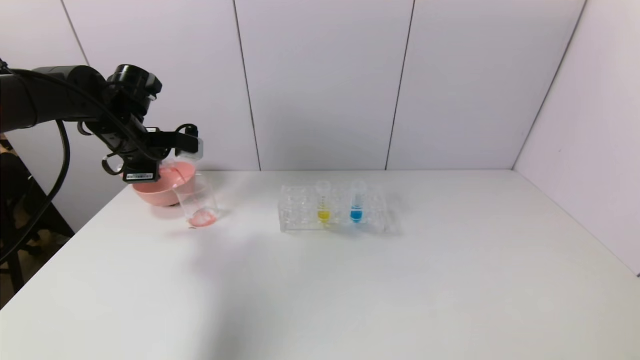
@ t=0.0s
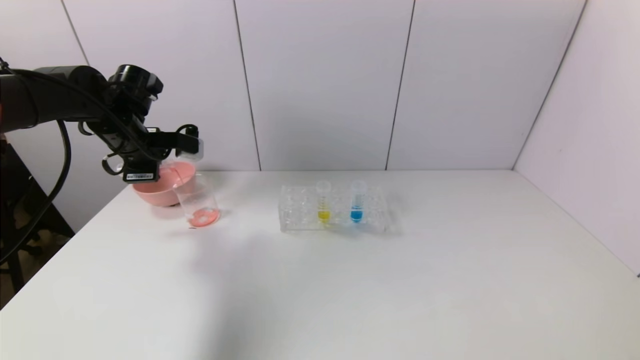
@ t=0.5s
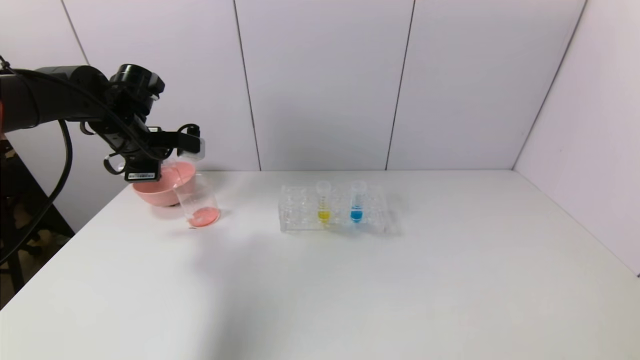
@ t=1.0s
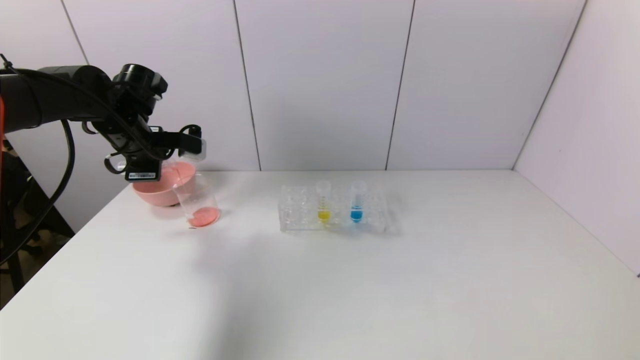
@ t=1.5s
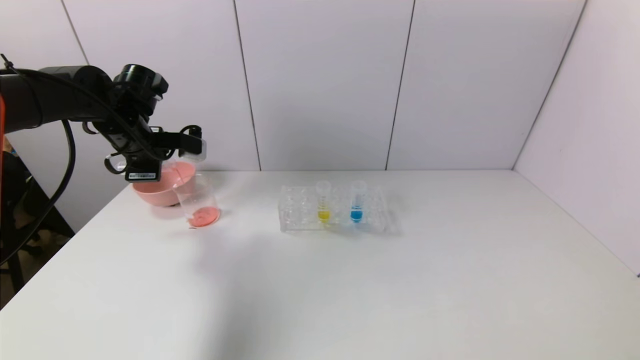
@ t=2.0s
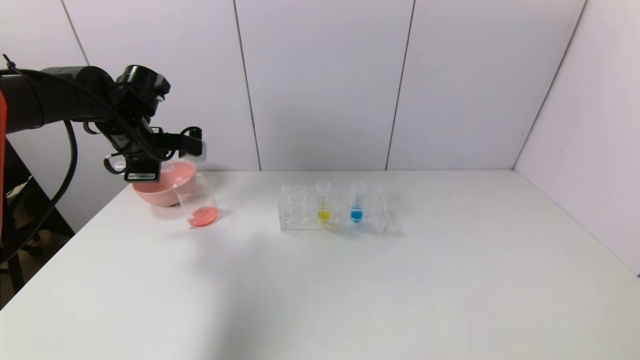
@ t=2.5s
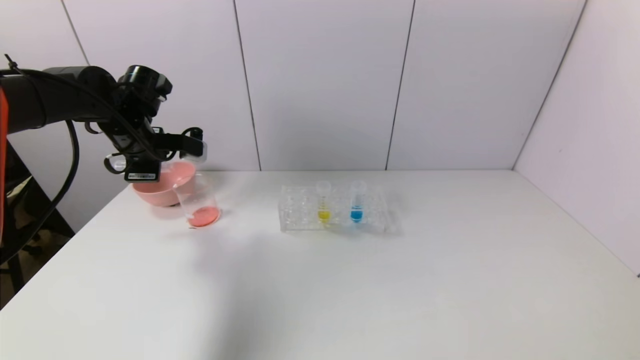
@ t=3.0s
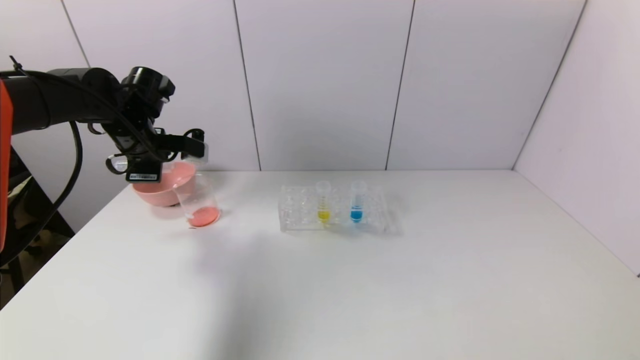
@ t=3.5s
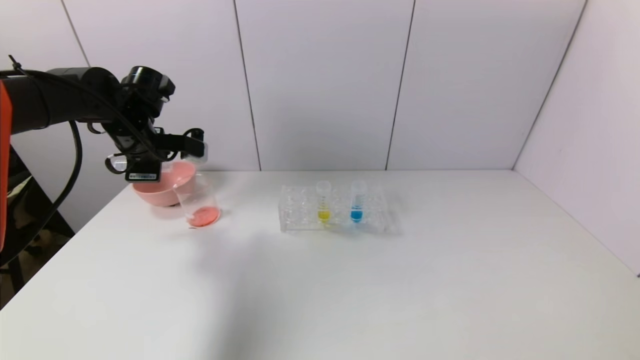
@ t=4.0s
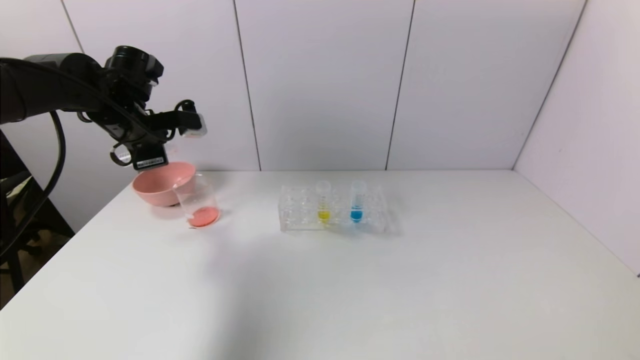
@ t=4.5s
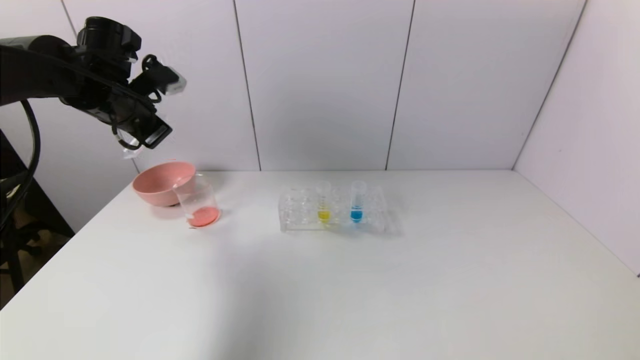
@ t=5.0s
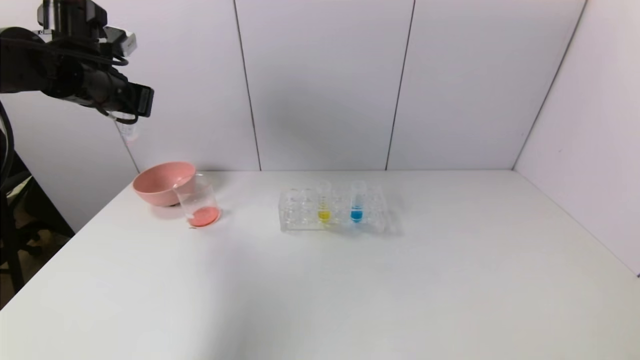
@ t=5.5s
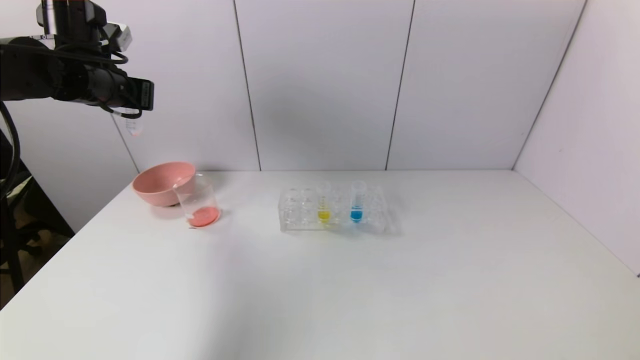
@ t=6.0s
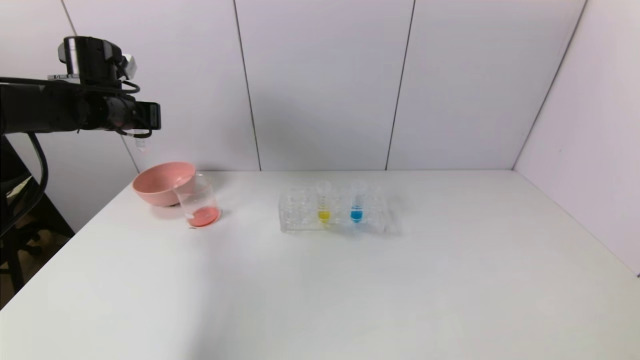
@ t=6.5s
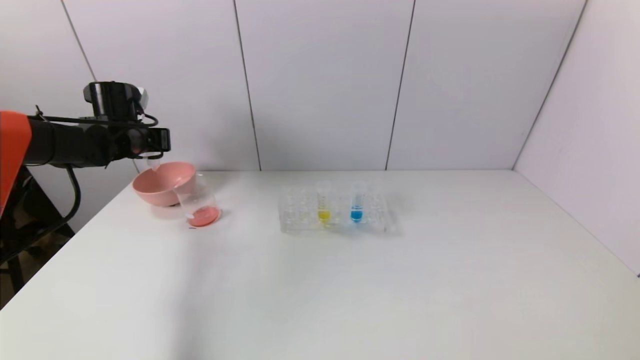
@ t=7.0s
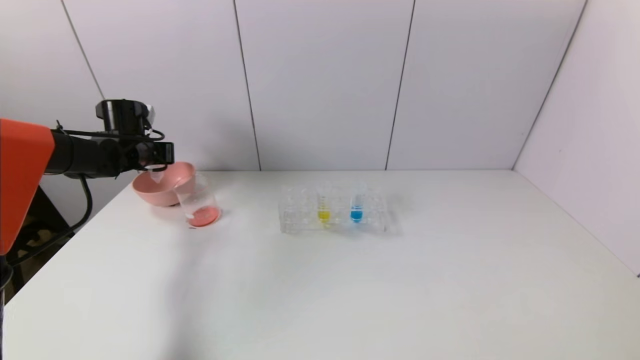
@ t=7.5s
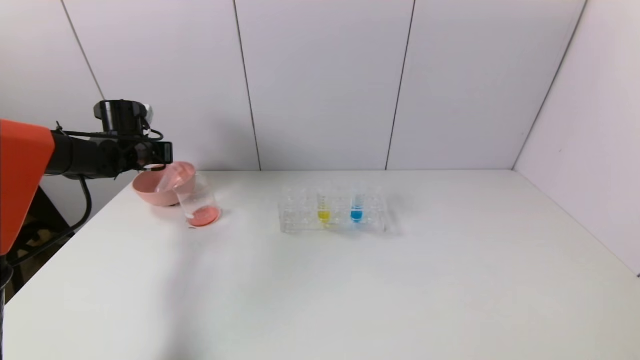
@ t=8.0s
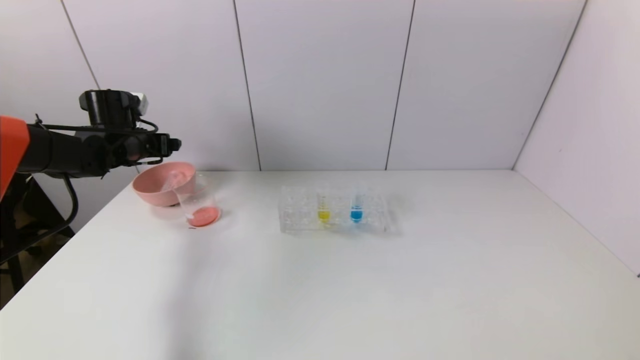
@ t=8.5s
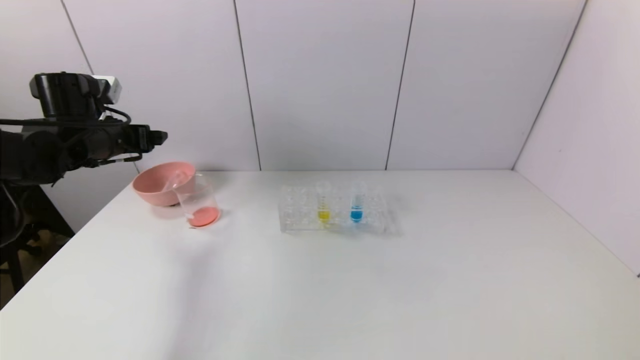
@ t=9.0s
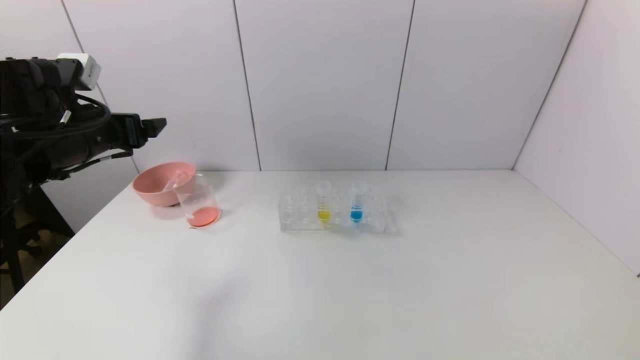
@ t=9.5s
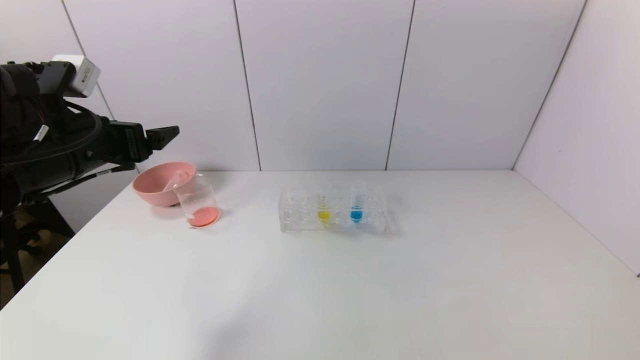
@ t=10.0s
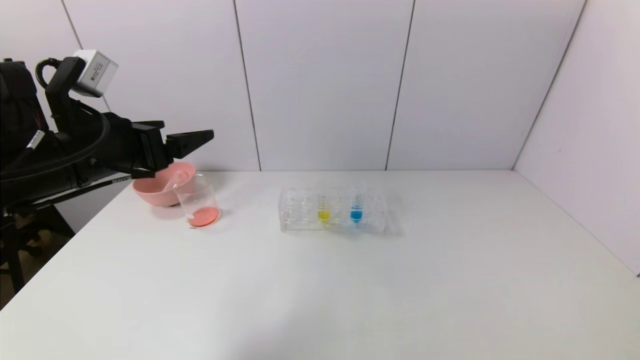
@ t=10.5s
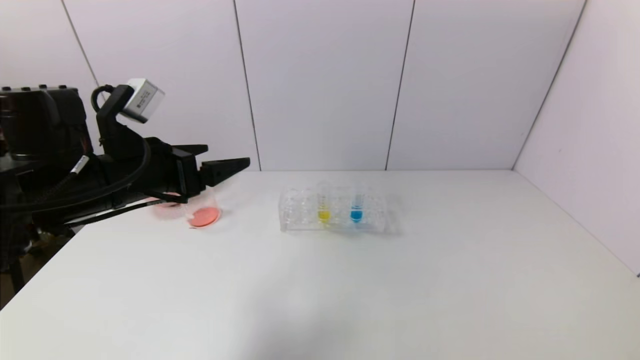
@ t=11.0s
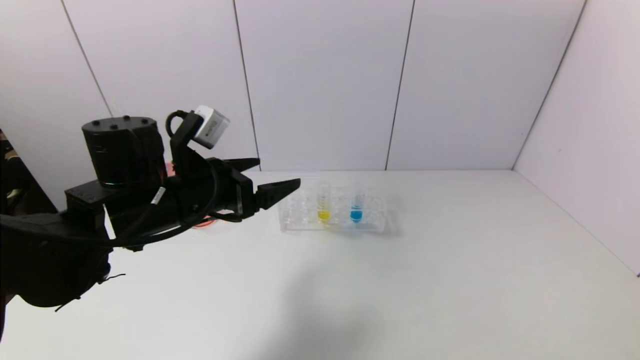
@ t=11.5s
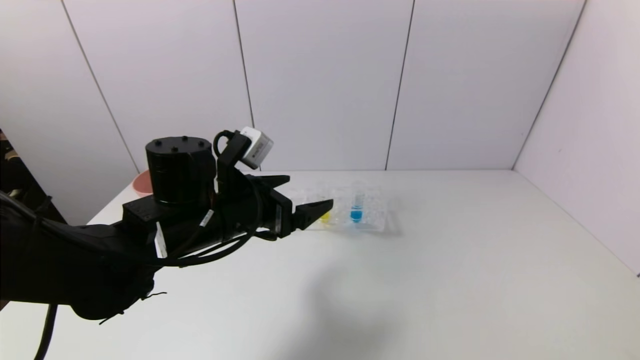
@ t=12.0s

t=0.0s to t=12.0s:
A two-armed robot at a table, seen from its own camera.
Task of the whole recording: pick up the test tube with red pigment and the test tube with blue pigment by grippers and pour them into the container.
Step, t=0.0s to t=5.0s: Pour the red reagent into the graduated cylinder with the left gripper.
Step, t=5.5s to t=9.0s: Place the test tube into the bowl with the left gripper.
t=0.0s to t=2.0s: Both grippers stay about where they are.
t=2.0s to t=4.0s: The grippers make only small movements.
t=4.0s to t=6.0s: The left gripper shifts some 10 cm upward.
t=6.0s to t=8.0s: The left gripper shifts roughly 15 cm downward and forward, and opens its fingers.
t=8.0s to t=10.0s: The left gripper is displaced backward and upward by some 20 cm, and opens its fingers.
t=10.0s to t=12.0s: The left gripper is displaced to the right and downward by roughly 20 cm.

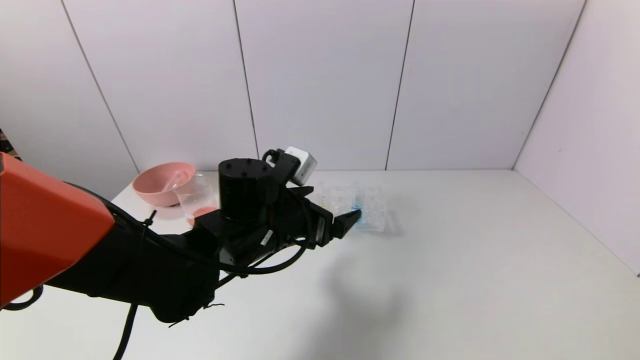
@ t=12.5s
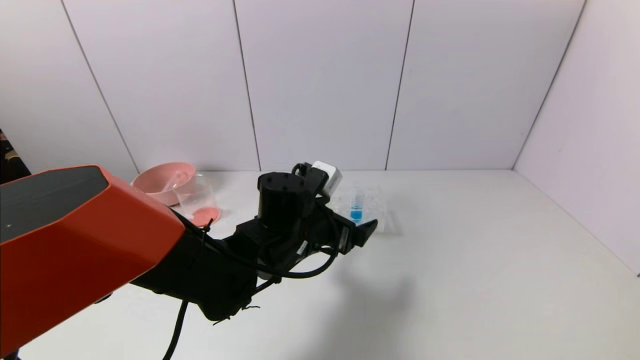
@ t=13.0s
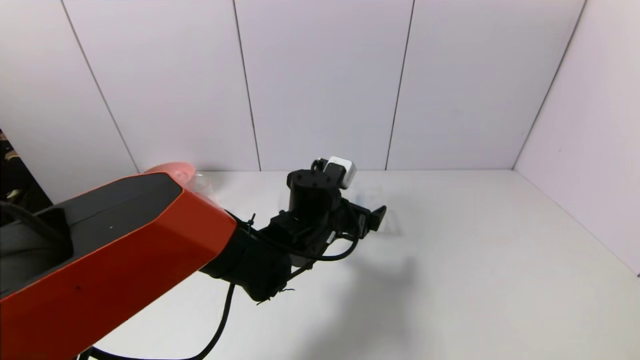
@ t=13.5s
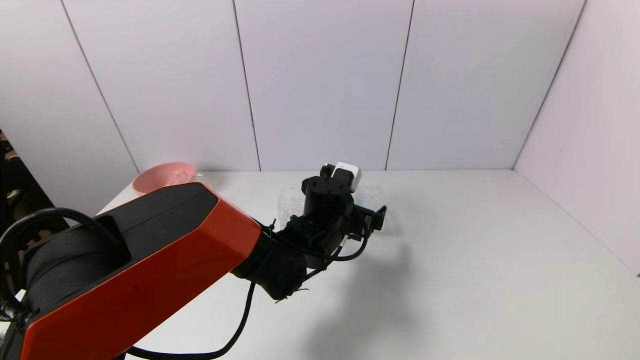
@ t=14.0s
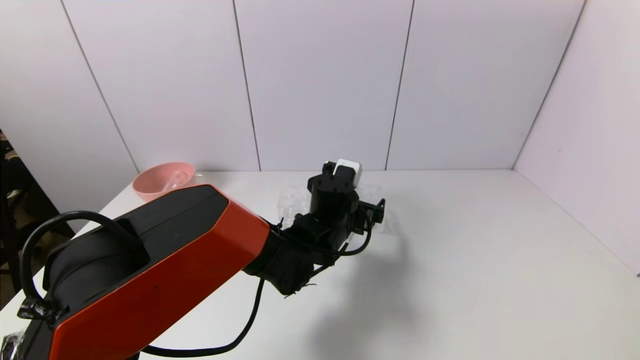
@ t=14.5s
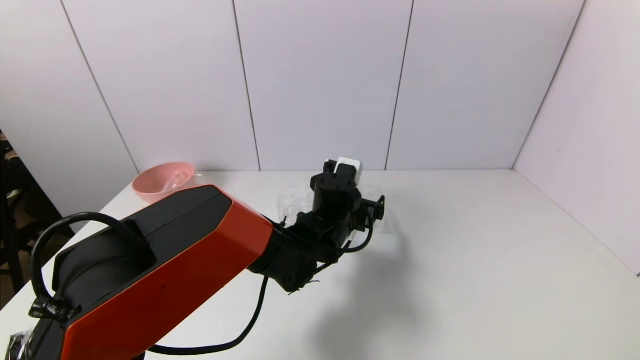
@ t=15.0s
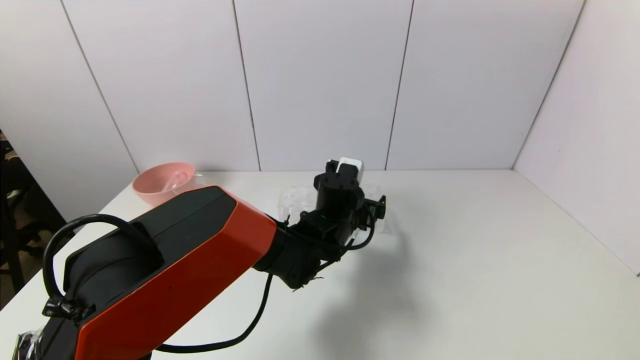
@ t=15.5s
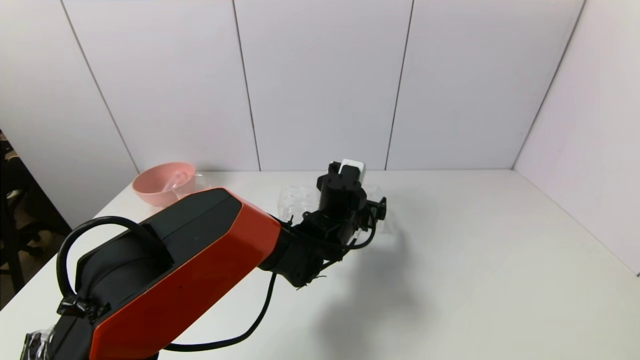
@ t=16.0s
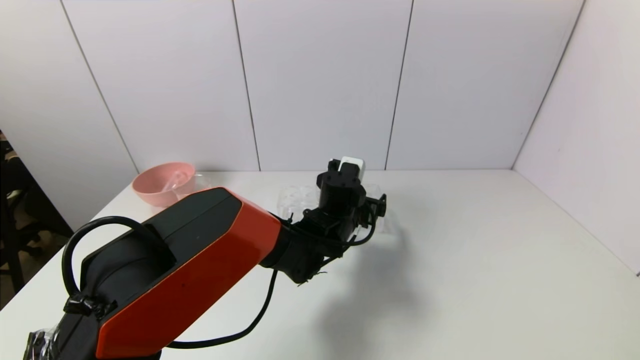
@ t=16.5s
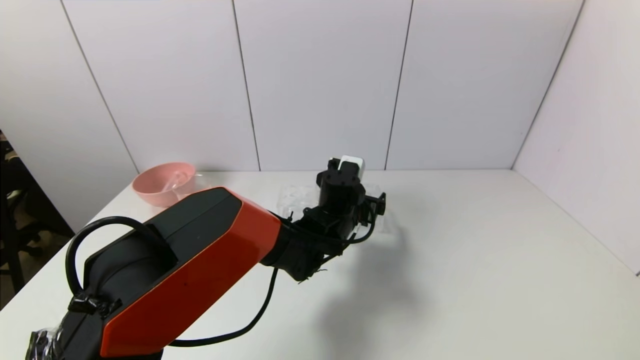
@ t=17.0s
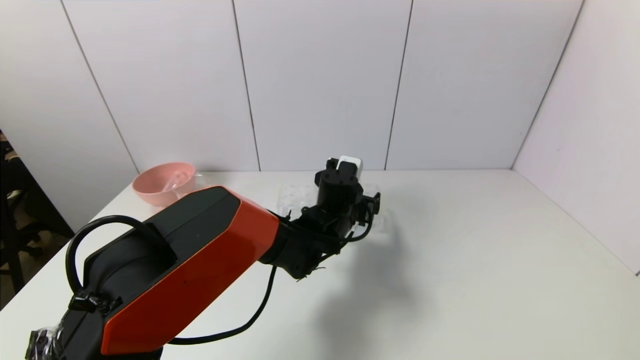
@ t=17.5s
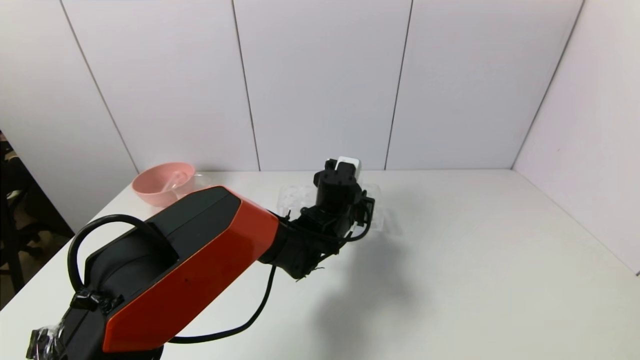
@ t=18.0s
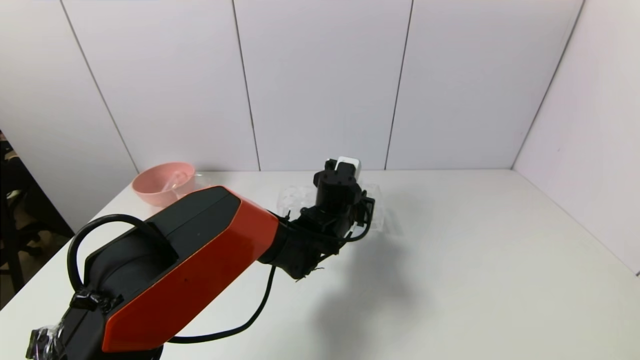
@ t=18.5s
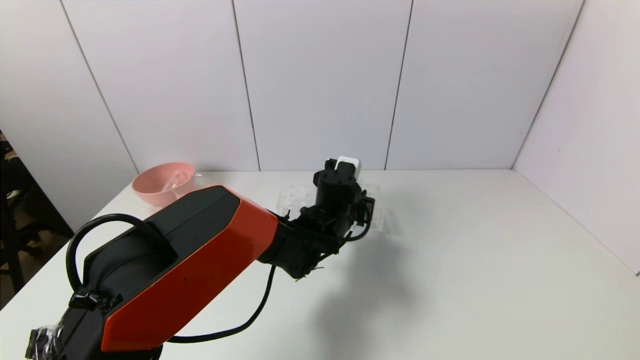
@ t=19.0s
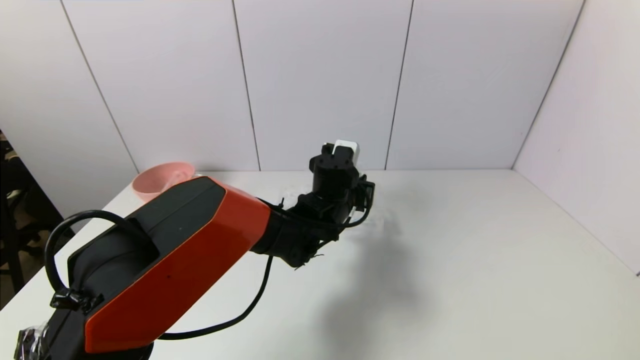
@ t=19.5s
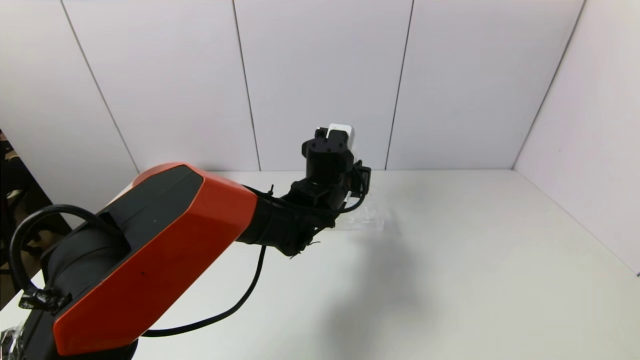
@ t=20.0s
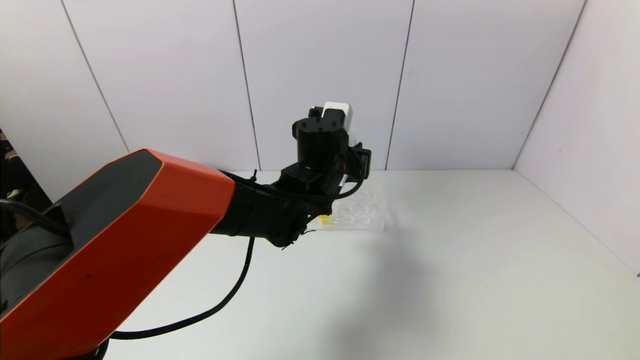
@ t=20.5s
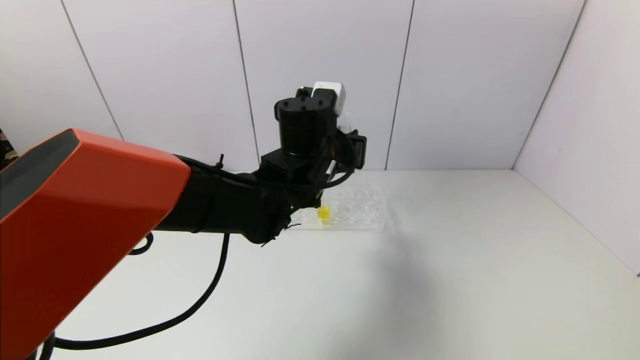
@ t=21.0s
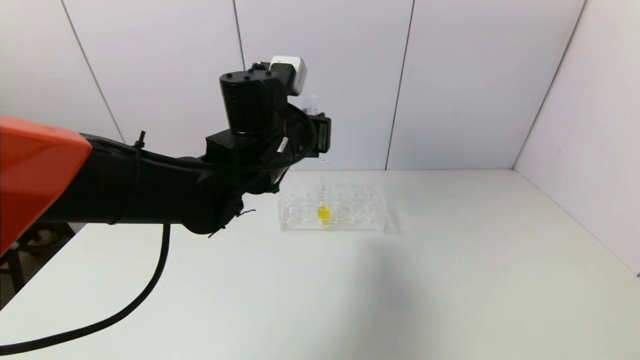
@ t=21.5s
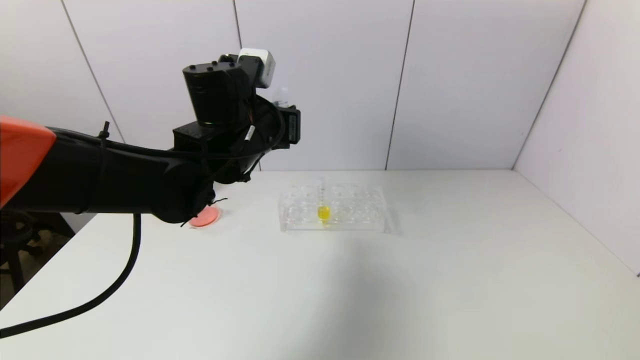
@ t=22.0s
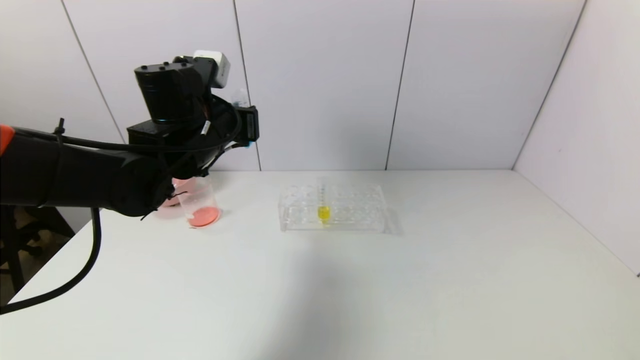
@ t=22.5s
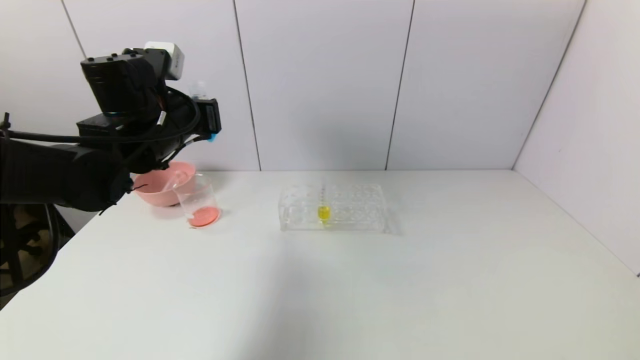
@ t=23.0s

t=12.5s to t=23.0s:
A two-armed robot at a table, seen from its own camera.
Task of the whole recording: pick up the test tube with red pigment and the test tube with blue pigment by grippers and pour them into the container.
Step, t=12.5s to t=18.5s: Grasp the blue reagent with the left gripper.
t=12.5s to t=14.5s: The left gripper travels to the right, forward and downward by roughly 15 cm.
t=14.5s to t=16.5s: The grippers move only a little.
t=16.5s to t=19.0s: The left gripper closes.
t=19.0s to t=21.0s: The left gripper travels upward by some 15 cm.
t=21.0s to t=23.0s: The left gripper is displaced to the left by about 20 cm.
